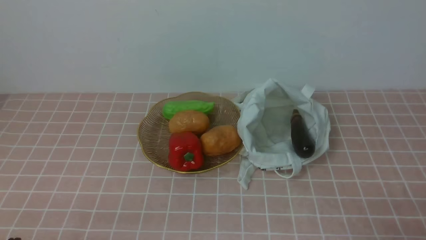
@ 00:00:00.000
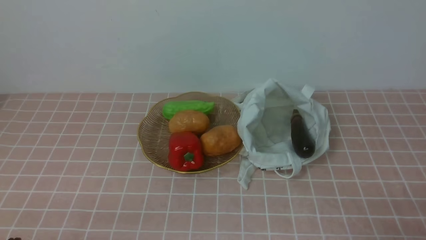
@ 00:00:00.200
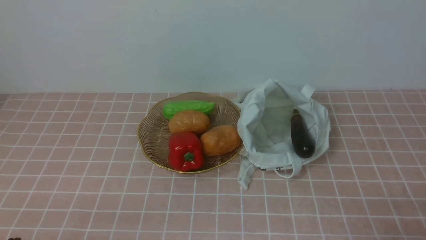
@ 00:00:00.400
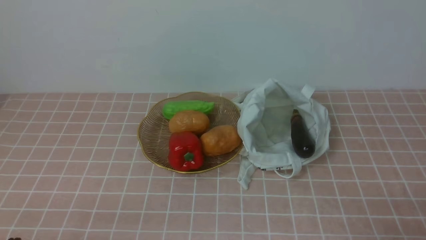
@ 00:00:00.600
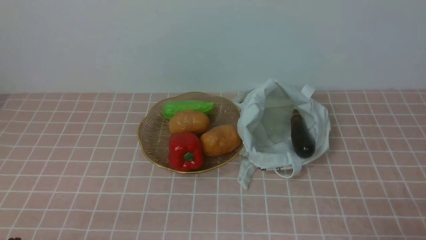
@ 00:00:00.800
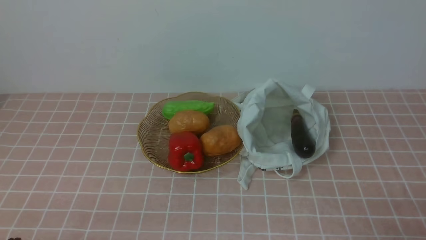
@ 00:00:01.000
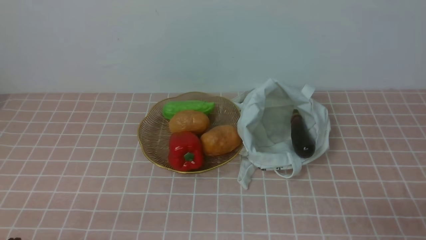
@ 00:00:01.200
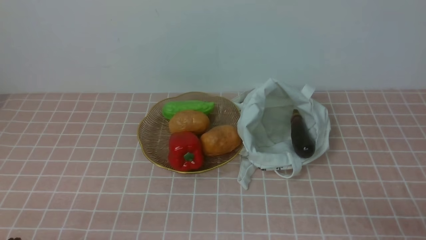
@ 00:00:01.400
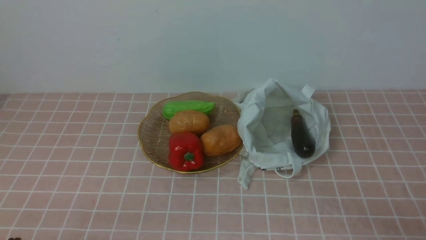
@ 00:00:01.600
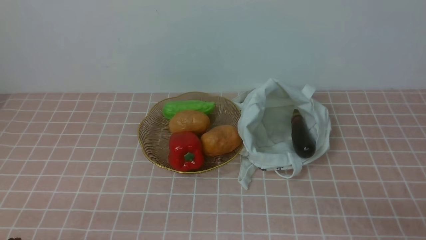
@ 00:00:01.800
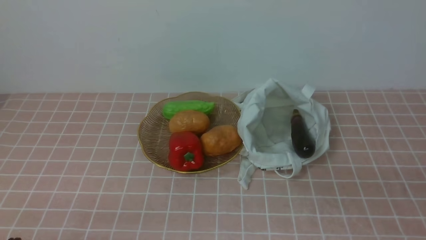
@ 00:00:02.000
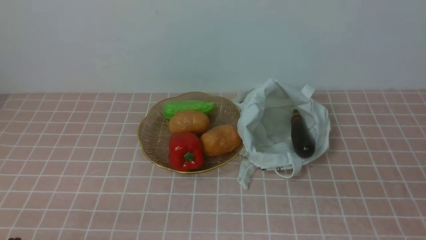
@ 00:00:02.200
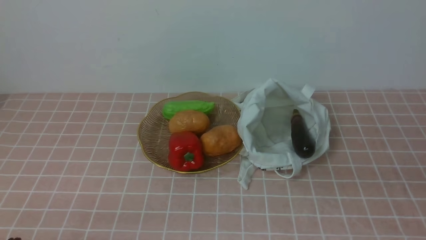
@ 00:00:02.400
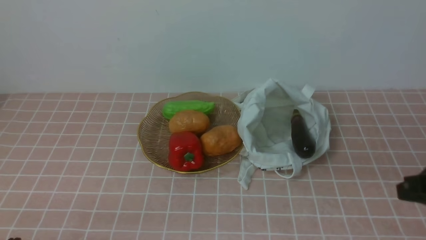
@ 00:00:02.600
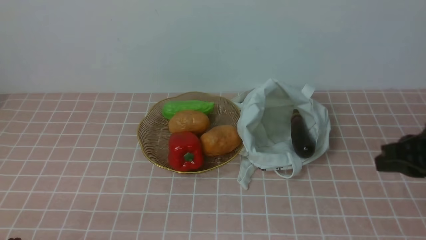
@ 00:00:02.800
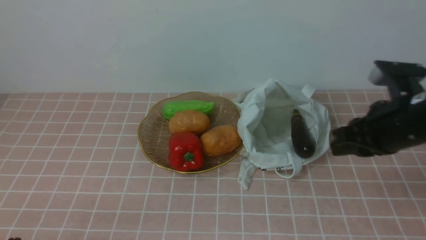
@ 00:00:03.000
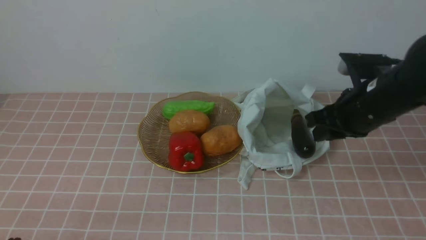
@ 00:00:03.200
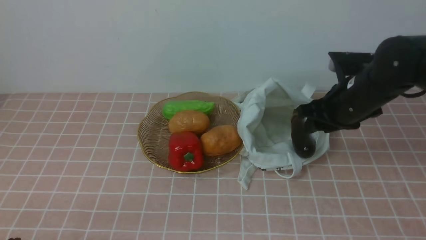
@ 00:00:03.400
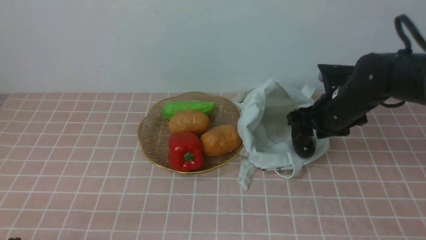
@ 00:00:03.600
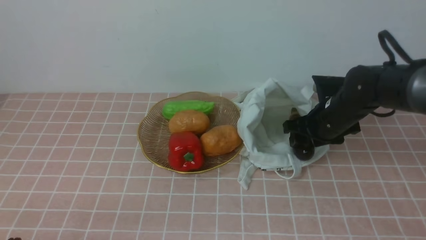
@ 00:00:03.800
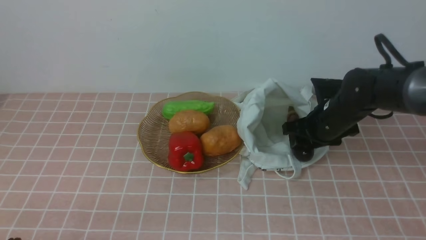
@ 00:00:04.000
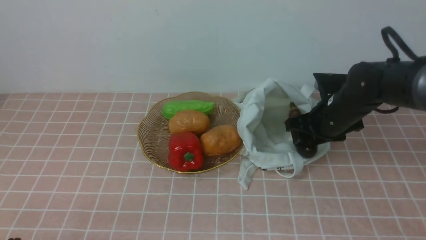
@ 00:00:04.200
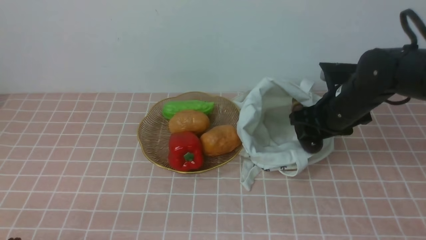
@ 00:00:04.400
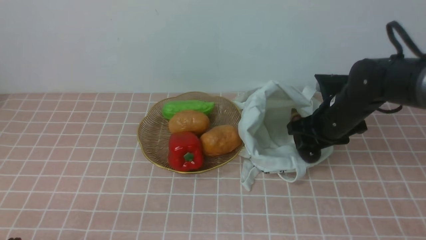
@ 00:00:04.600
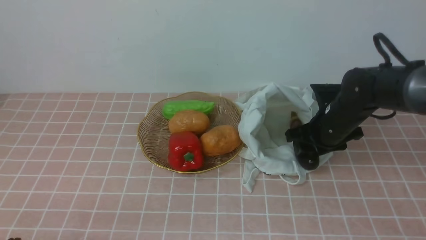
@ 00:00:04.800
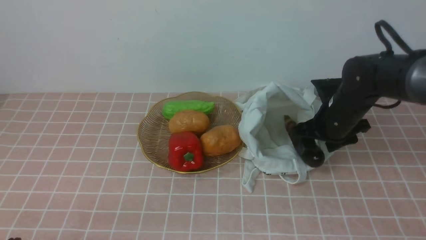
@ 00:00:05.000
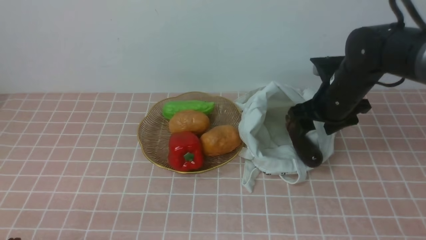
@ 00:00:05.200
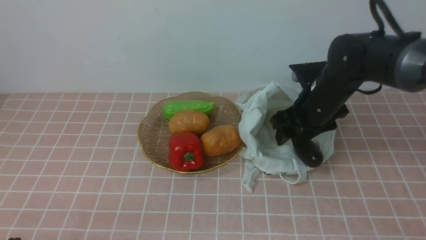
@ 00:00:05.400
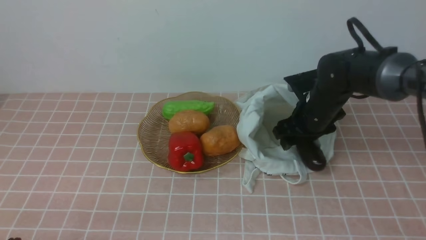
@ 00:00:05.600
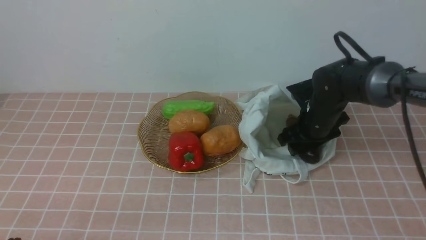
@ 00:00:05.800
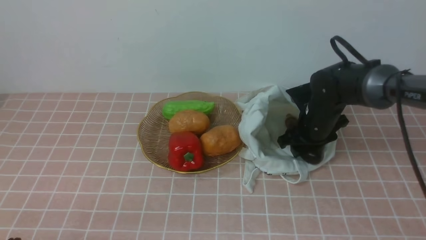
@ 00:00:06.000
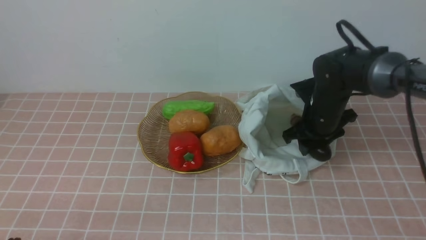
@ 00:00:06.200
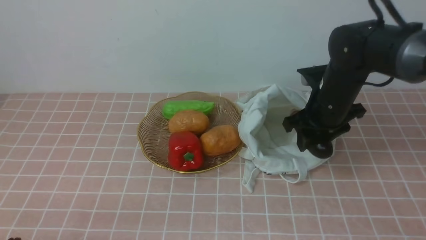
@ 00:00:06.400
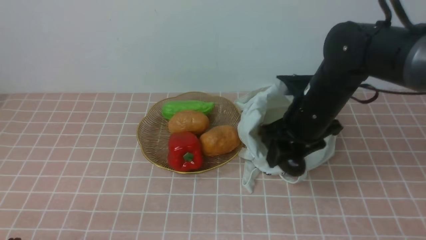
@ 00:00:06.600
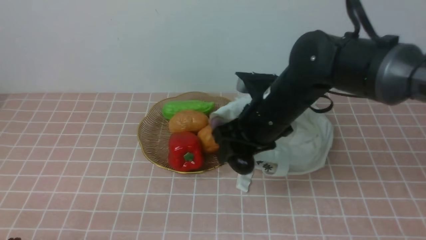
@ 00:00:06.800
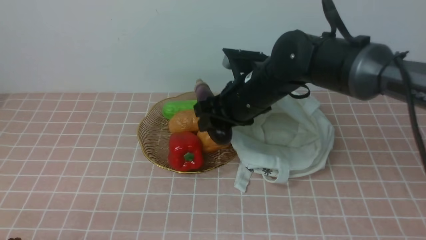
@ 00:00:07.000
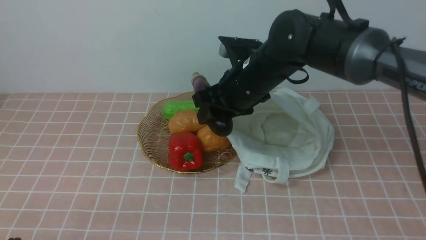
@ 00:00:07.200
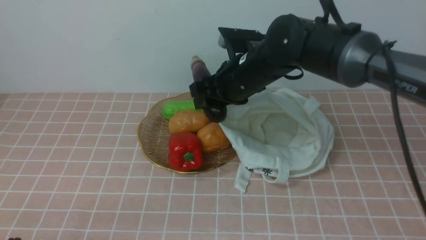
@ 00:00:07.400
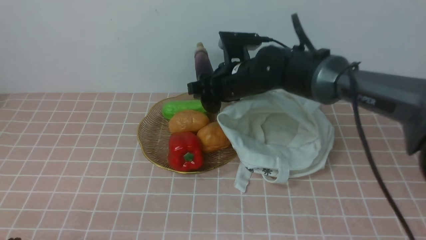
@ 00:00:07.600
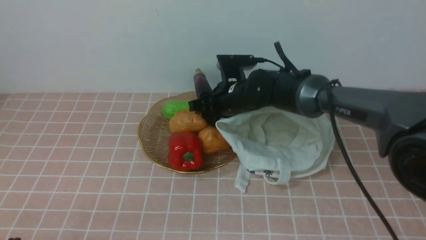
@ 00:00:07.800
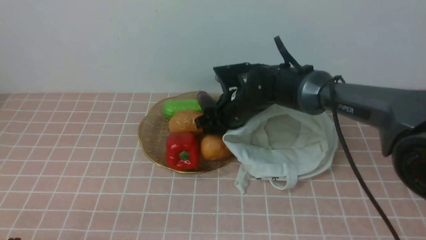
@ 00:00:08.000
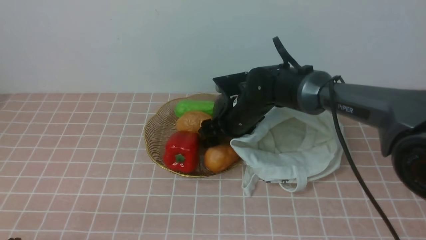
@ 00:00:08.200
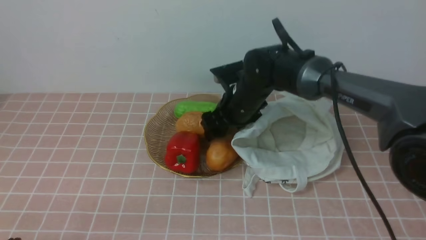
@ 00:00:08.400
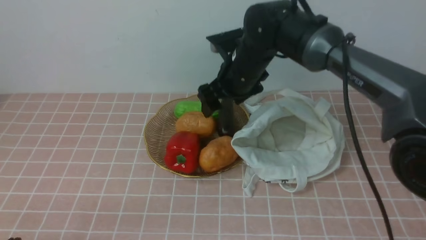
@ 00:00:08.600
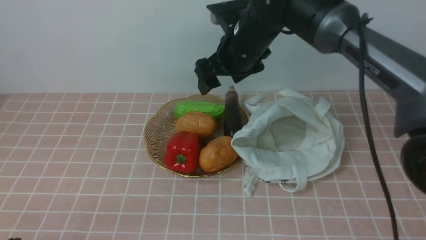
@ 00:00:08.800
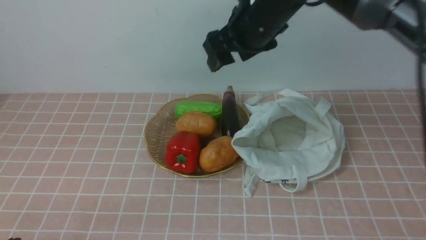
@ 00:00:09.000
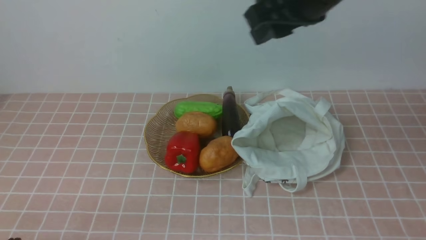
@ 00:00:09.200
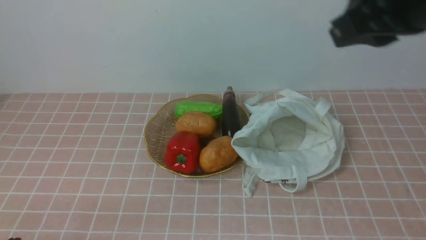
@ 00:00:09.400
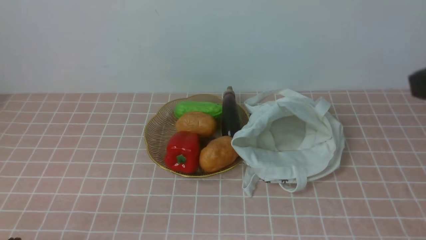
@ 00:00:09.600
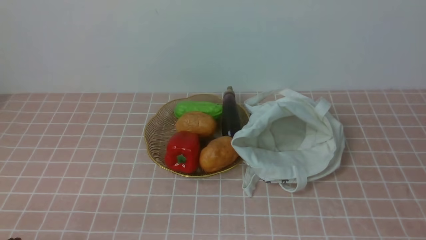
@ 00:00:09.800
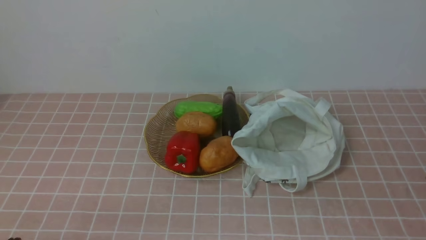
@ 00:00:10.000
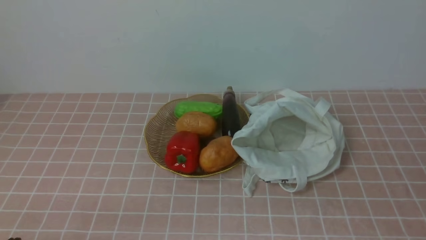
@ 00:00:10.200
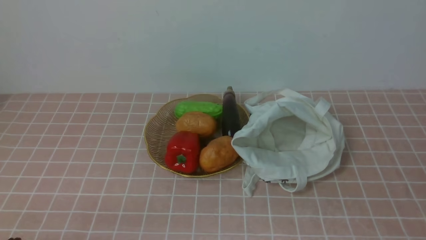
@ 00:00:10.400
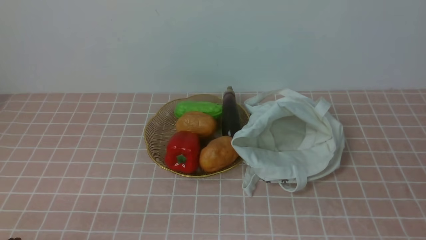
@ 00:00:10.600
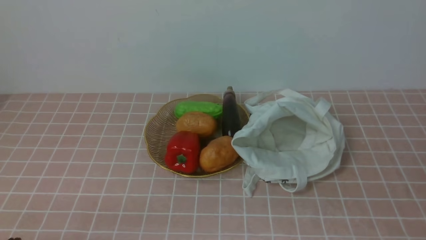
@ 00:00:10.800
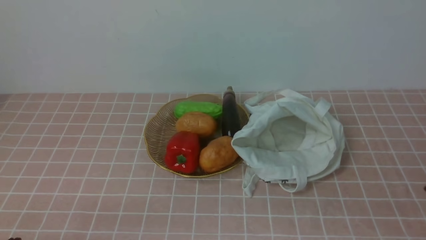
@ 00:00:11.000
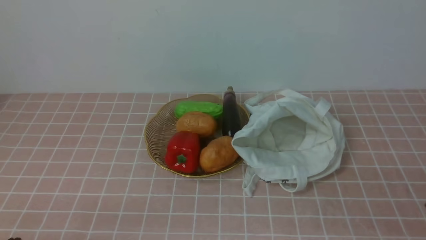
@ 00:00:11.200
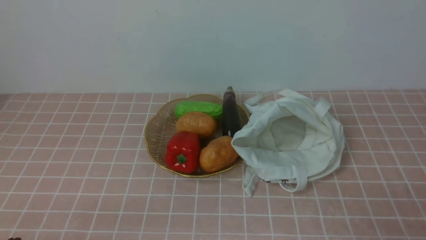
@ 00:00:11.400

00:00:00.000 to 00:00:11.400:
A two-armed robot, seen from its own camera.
Task of the whole recording: take vegetables from bag on pink coffee tablecloth place on plate.
Step, 00:00:00.000 to 00:00:04.000: Grasp the eggplant with right gripper.
Step, 00:00:04.400 to 00:00:08.600: Place the eggplant on the plate with right gripper.
00:00:01.400 to 00:00:02.800: The right gripper heads forward and upward, covering roughly 20 cm.
00:00:02.800 to 00:00:04.200: The right gripper goes about 20 cm forward, downward and to the left, and opens.
00:00:04.200 to 00:00:05.600: The grippers stay close to where they were, moving slightly.
00:00:05.600 to 00:00:07.200: The right gripper moves to the left and upward, roughly 15 cm.
00:00:07.200 to 00:00:08.600: The right gripper goes downward and returns, roughly 10 cm each way, and opens.
00:00:08.600 to 00:00:10.000: The right gripper is displaced backward and to the right by approximately 40 cm, and closes up.

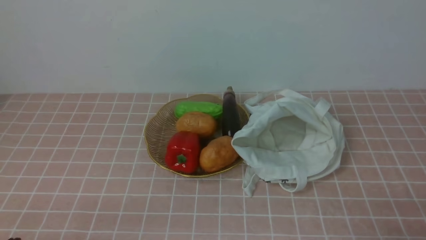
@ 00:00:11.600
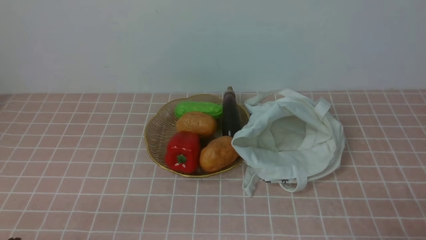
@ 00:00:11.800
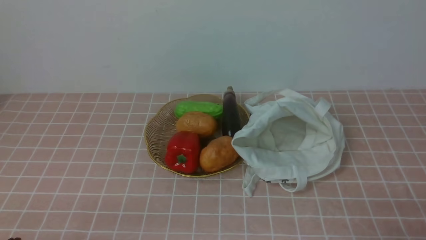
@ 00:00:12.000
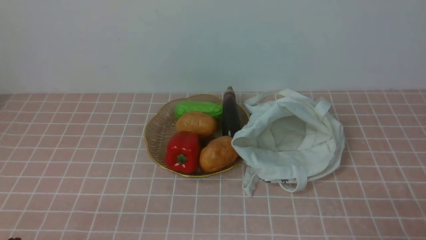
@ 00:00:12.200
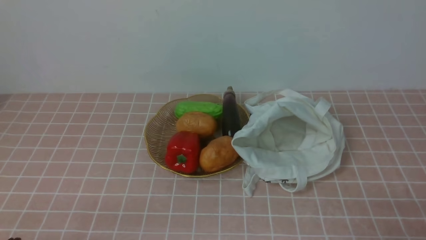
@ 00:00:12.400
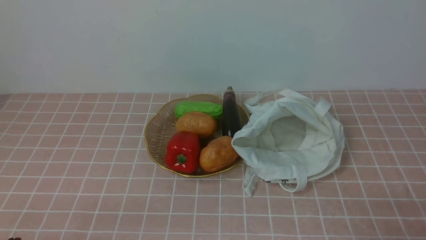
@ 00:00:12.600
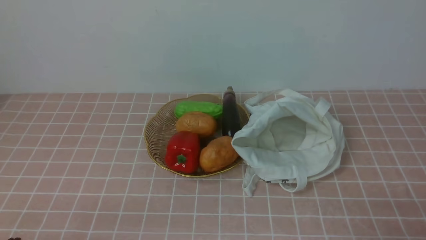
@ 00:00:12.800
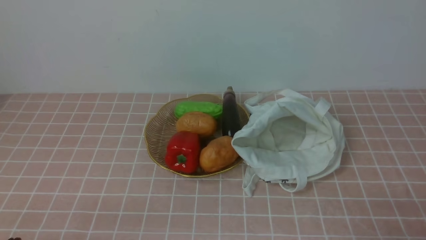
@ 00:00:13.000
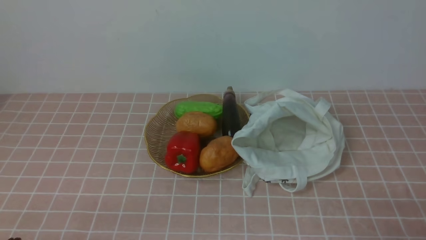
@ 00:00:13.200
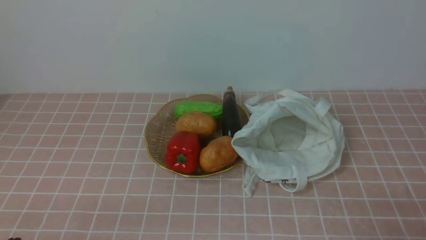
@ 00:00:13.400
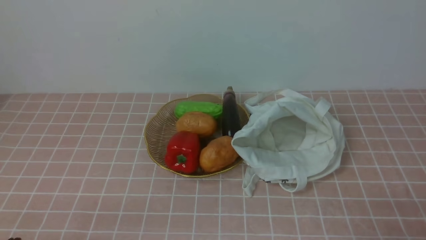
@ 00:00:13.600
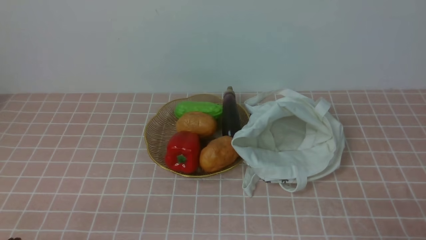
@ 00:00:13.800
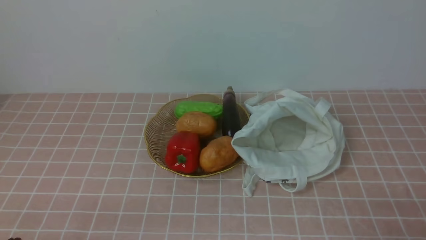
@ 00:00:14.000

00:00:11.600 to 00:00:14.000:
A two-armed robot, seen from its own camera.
Task of the whole recording: take vegetables from bag on pink coffee tablecloth place on plate.
00:00:11.600 to 00:00:14.000: Both grippers stay about where they are.
